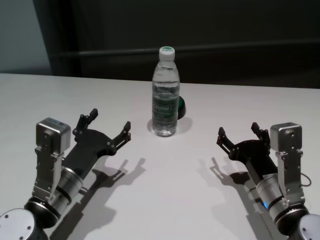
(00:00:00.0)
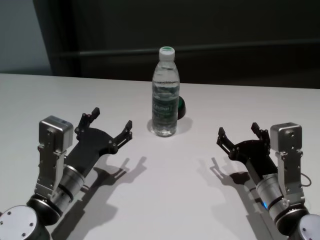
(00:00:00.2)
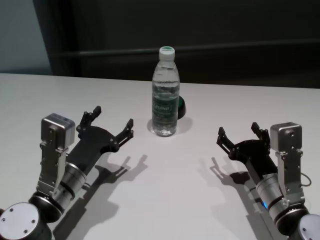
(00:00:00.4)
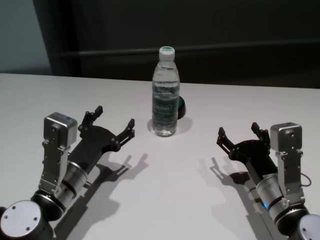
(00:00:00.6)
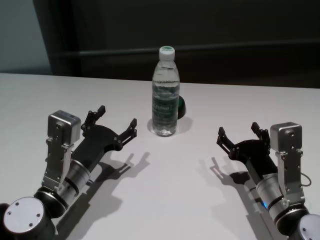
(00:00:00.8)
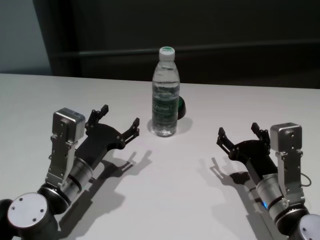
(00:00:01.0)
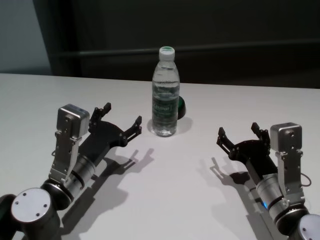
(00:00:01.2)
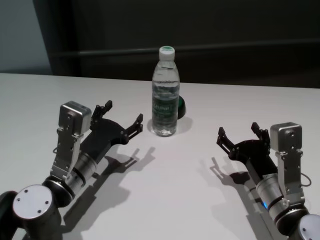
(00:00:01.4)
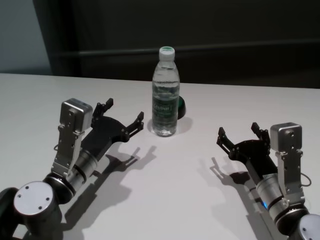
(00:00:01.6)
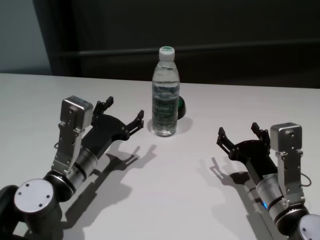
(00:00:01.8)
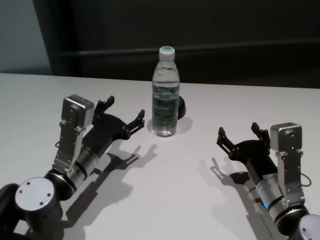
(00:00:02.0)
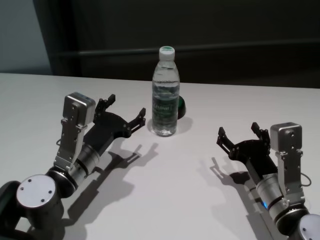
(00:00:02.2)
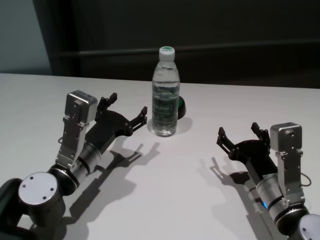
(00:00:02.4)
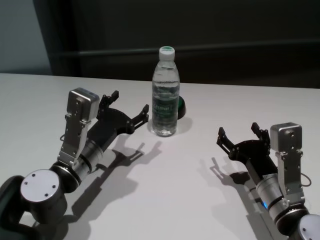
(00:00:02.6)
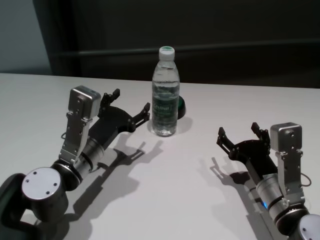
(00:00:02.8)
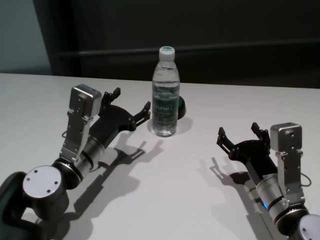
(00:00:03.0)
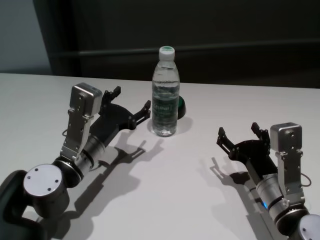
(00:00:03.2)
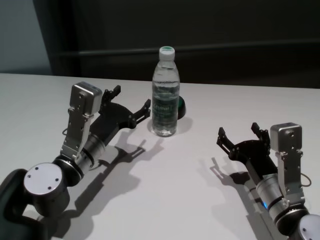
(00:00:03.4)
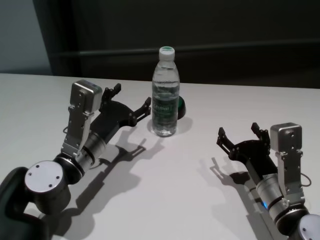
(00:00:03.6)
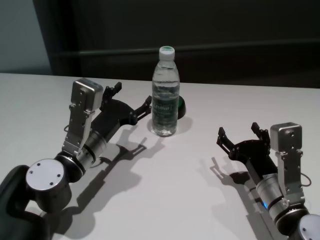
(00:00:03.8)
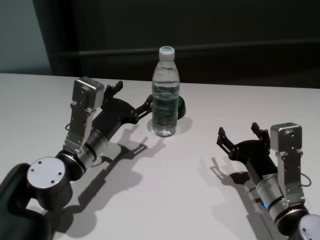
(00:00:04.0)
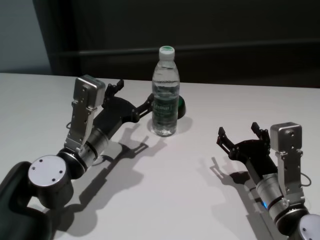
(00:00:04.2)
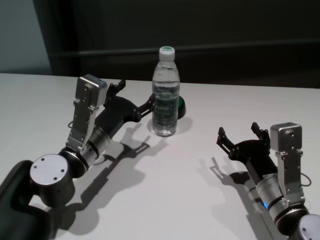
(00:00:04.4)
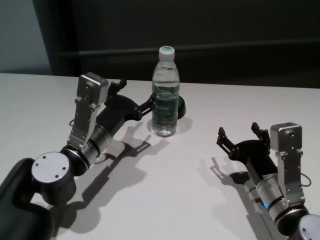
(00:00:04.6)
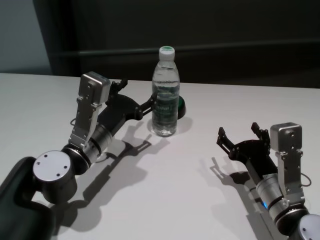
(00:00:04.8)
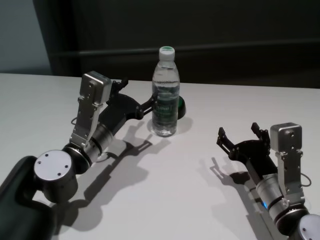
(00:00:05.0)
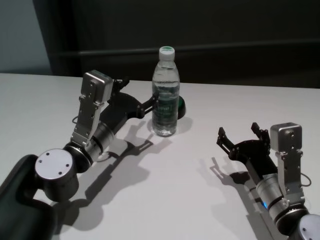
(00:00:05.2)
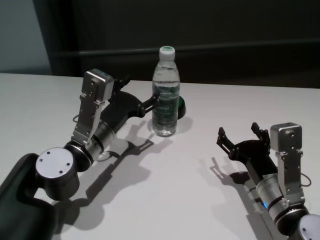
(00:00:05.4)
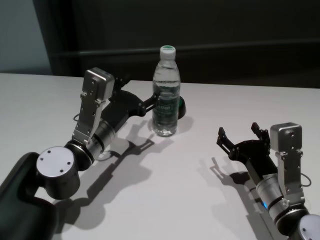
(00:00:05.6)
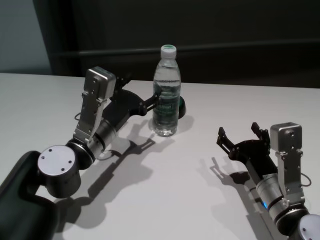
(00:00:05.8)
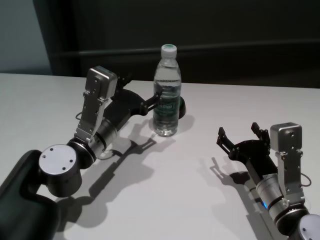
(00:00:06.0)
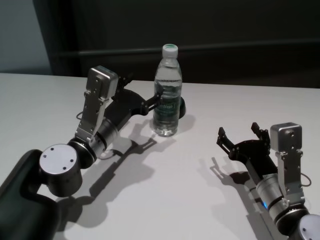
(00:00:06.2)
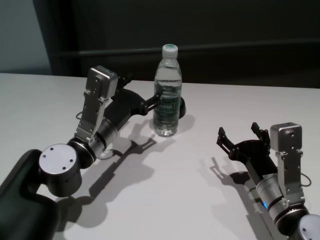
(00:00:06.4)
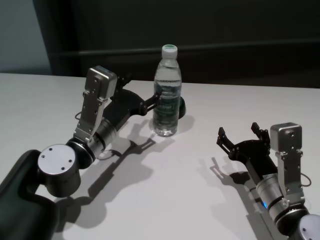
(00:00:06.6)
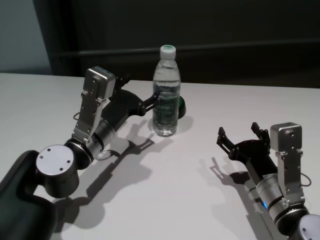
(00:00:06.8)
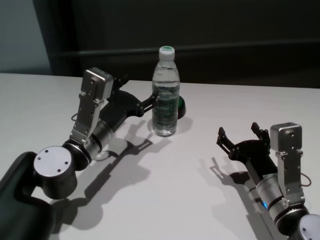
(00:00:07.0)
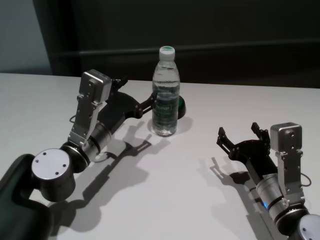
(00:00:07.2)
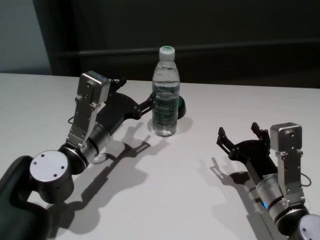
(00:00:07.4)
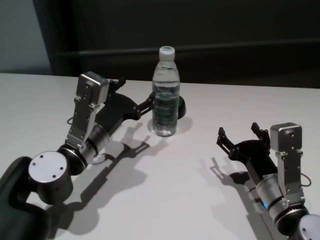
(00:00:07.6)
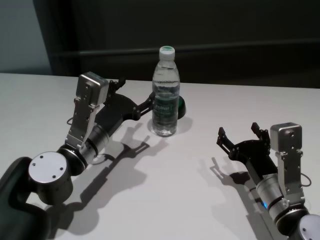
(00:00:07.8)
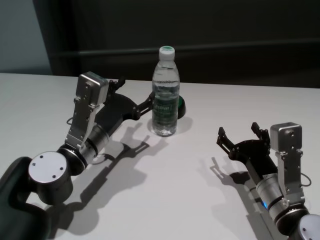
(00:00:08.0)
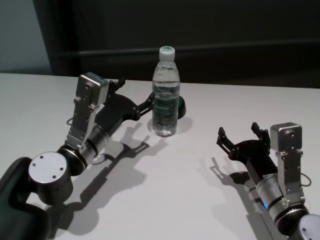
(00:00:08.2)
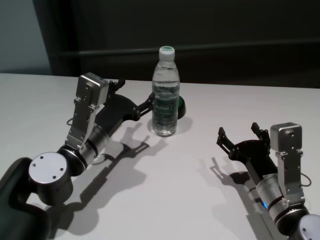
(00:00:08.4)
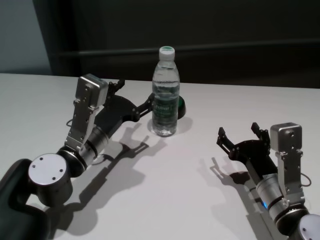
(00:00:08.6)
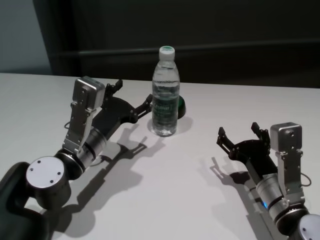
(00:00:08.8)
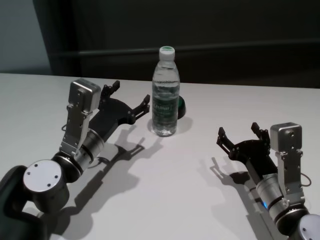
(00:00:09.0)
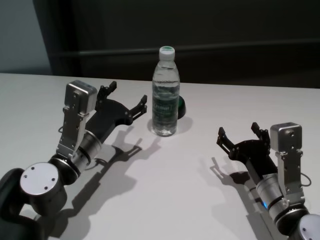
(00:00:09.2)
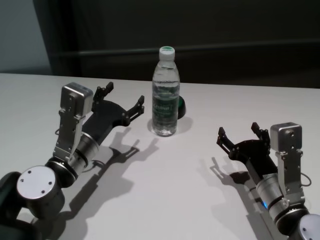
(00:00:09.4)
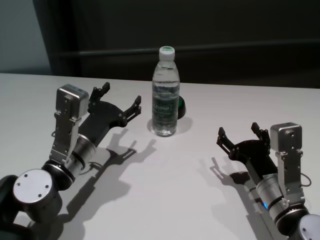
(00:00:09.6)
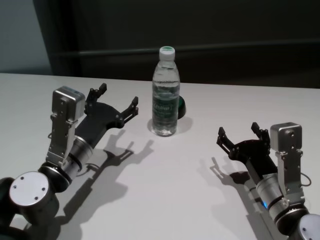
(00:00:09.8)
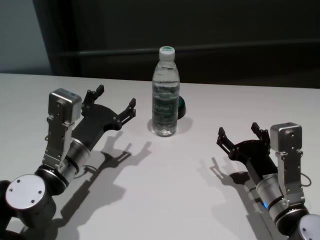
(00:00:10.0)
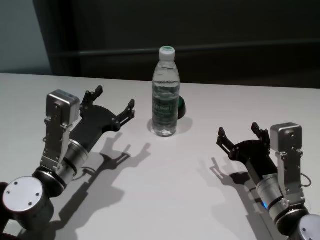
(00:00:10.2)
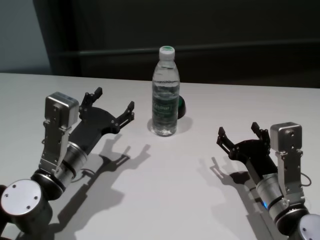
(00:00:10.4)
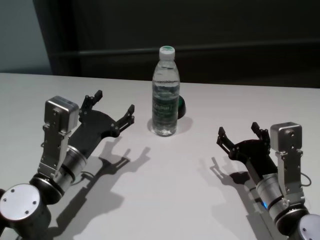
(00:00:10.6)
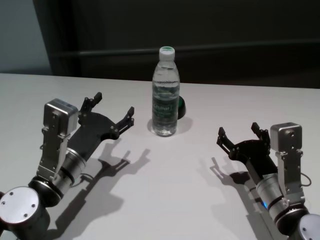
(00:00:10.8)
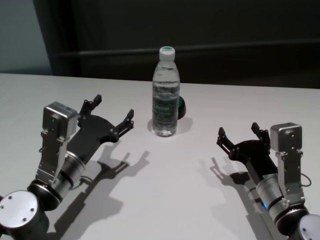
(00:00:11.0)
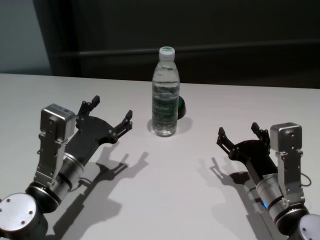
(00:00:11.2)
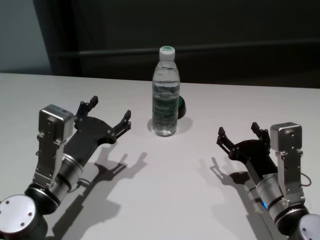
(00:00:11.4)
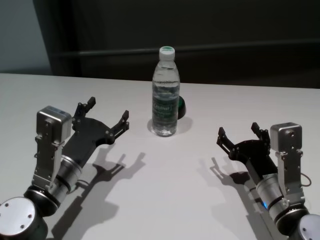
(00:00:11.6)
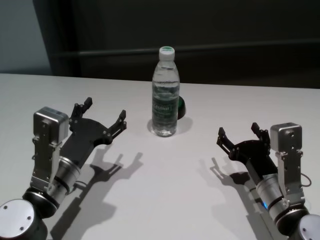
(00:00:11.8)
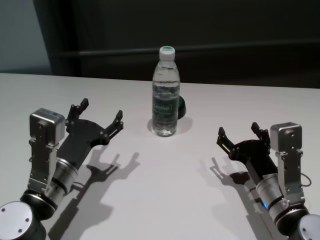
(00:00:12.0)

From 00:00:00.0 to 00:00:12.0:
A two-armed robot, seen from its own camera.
Task of the whole recording: return to a safe position after touching an obstacle with your arm on the white table.
Step, from 00:00:00.0 to 00:00:08.8: Touch the bottle with left gripper.

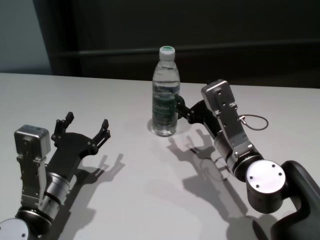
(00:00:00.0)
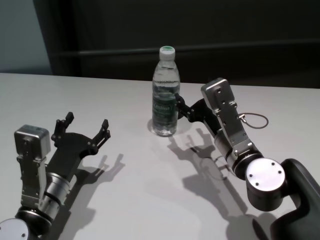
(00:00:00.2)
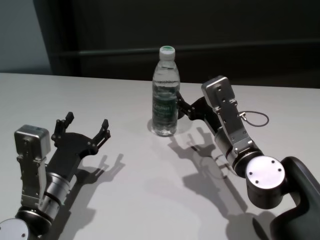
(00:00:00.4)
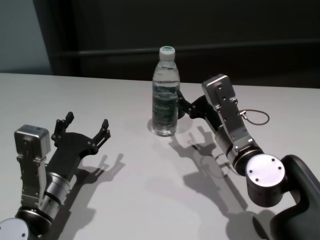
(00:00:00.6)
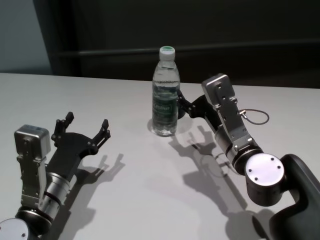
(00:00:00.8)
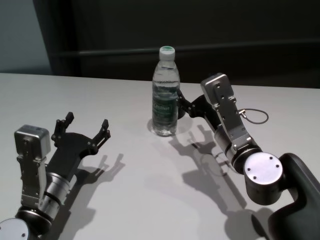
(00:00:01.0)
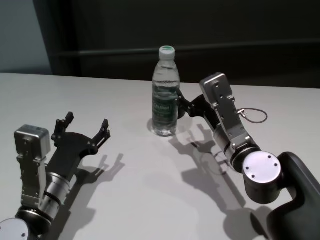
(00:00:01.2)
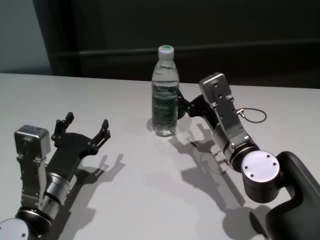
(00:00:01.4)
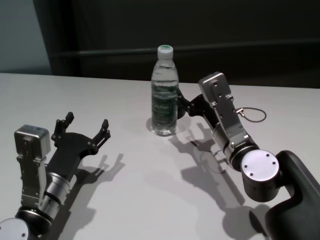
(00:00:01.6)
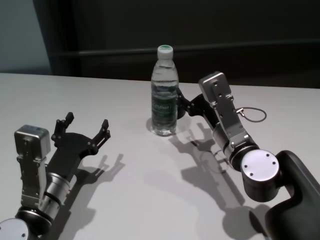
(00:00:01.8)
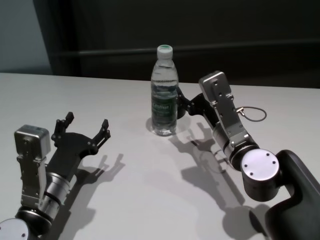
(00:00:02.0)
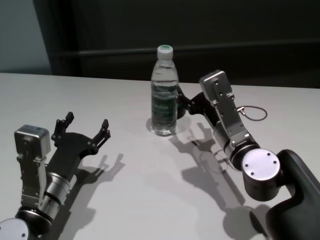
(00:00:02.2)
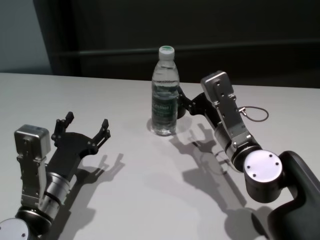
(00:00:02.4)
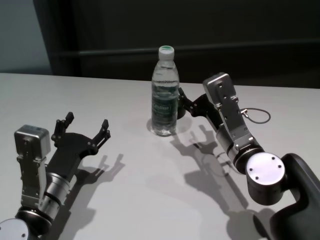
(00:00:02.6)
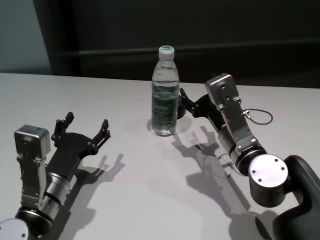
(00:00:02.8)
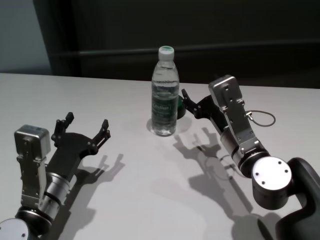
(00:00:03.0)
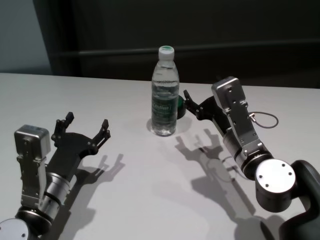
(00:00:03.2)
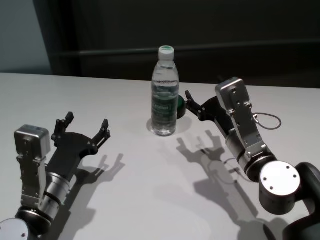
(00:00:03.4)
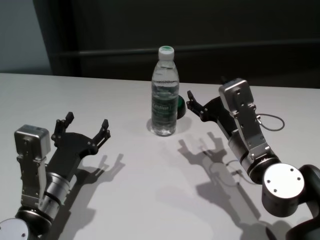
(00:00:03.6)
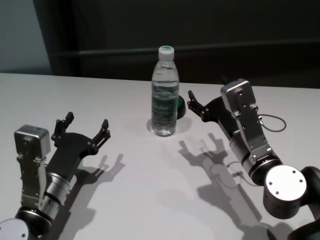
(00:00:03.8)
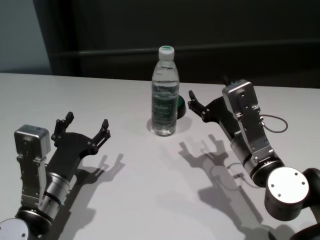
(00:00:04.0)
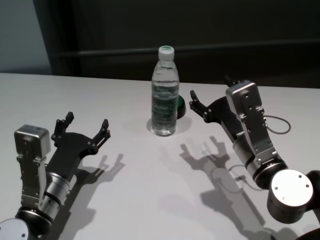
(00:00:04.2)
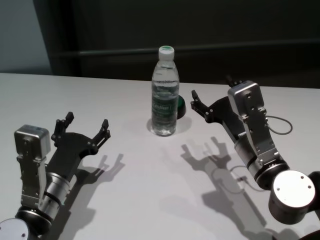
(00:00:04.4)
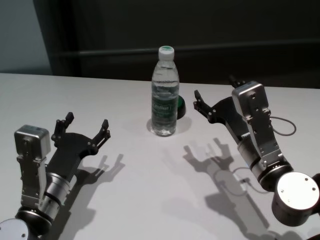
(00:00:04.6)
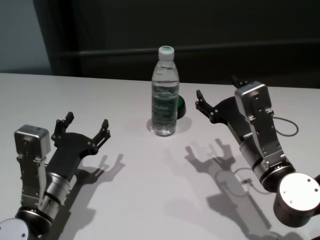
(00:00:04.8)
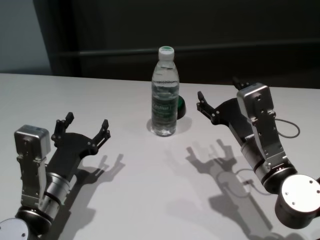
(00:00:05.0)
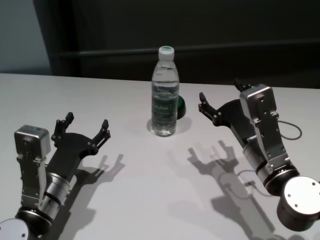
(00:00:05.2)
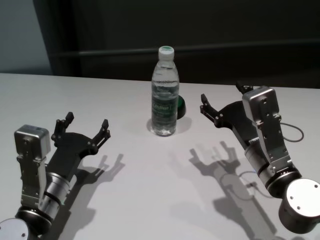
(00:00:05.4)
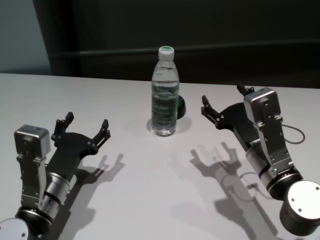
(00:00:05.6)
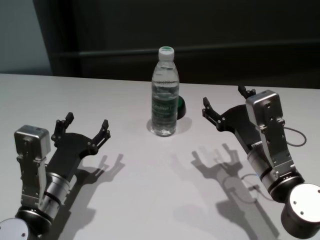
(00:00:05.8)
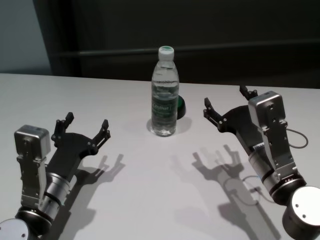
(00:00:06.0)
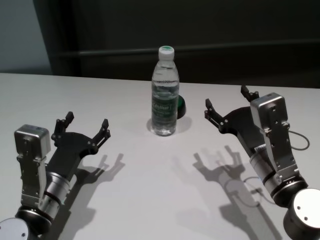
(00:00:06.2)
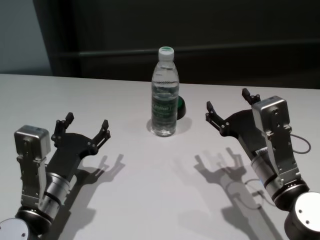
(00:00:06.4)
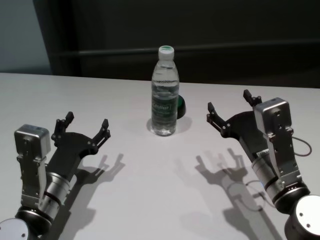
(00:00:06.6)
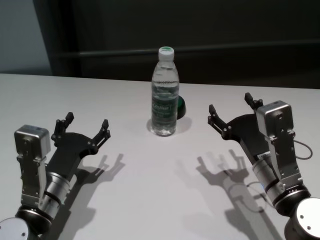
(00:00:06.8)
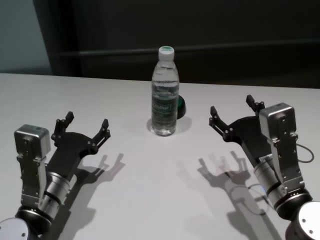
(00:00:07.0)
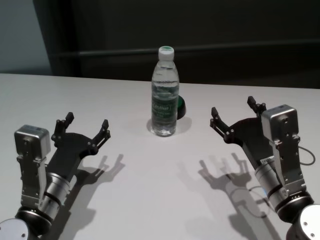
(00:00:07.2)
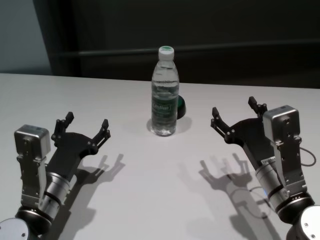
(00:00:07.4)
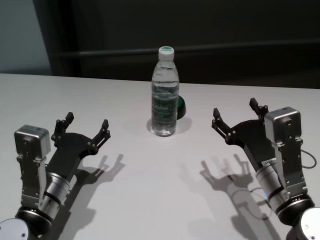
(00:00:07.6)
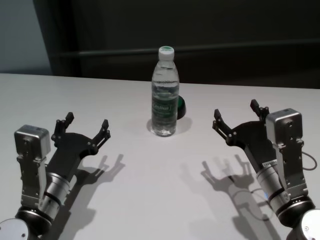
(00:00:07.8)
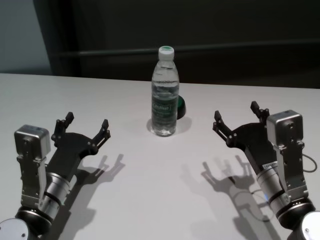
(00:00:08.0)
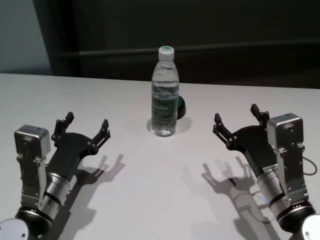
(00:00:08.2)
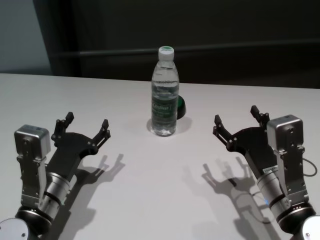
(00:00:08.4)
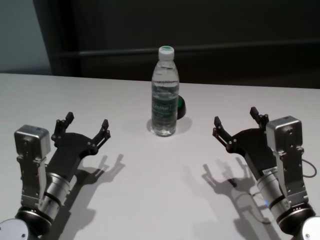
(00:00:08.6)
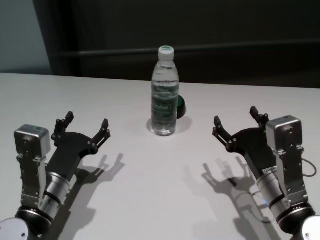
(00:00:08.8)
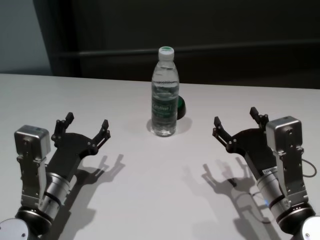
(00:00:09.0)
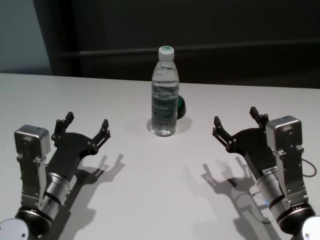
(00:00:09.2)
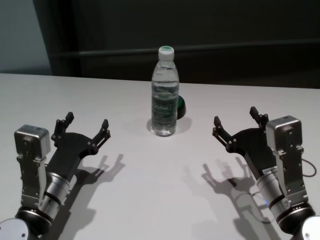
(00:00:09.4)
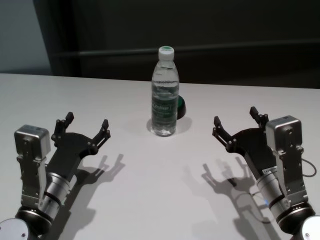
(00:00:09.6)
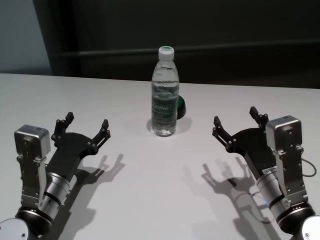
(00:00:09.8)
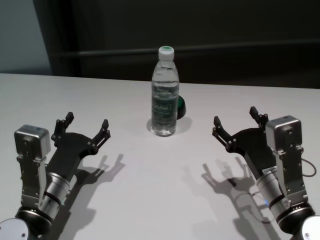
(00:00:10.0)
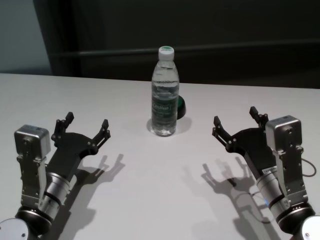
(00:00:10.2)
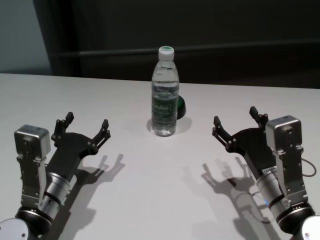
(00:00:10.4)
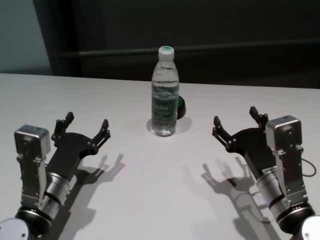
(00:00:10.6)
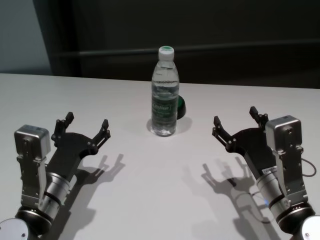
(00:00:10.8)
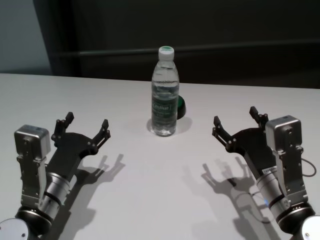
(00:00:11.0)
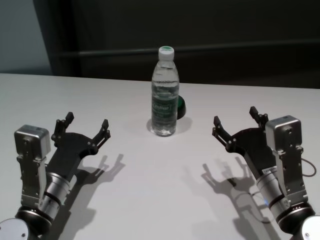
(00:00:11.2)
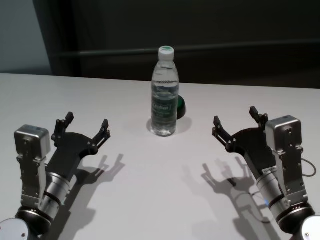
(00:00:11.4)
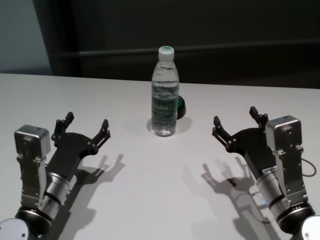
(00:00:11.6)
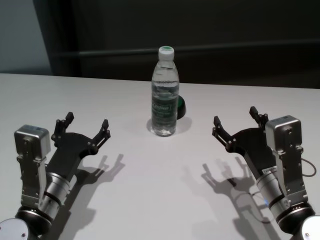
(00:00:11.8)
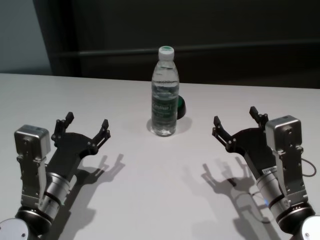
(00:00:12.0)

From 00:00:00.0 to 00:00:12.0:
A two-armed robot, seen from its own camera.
Task of the whole recording: return to a safe position after touching an obstacle with your arm on the white table.
Step, from 00:00:00.0 to 00:00:03.0: Touch the bottle with right gripper.
